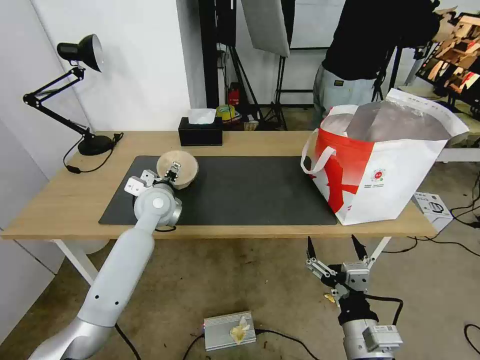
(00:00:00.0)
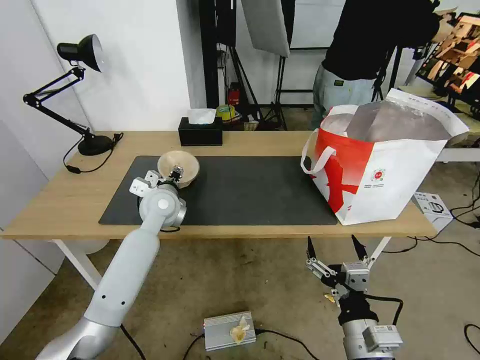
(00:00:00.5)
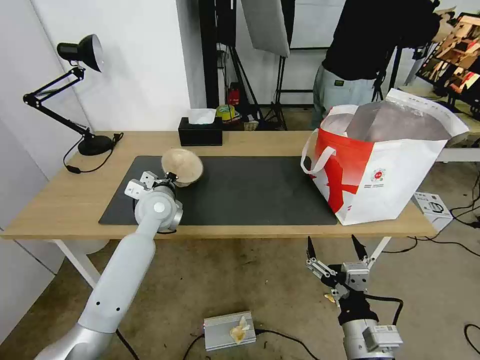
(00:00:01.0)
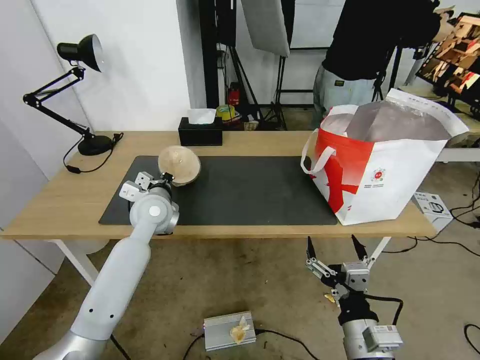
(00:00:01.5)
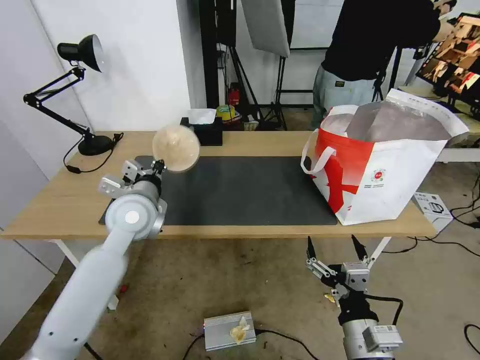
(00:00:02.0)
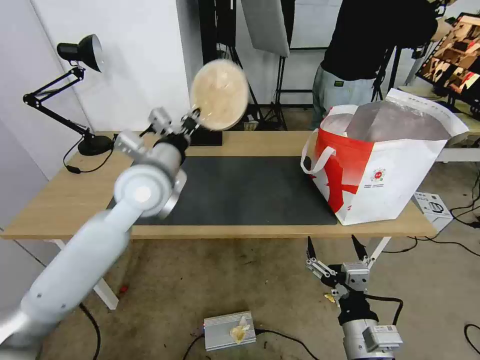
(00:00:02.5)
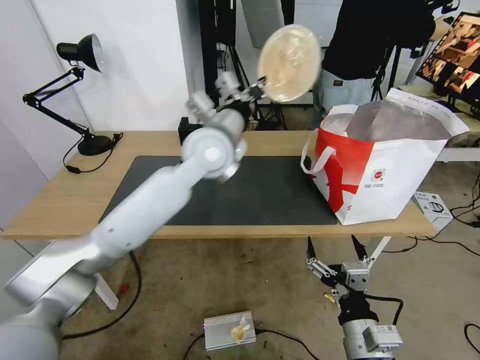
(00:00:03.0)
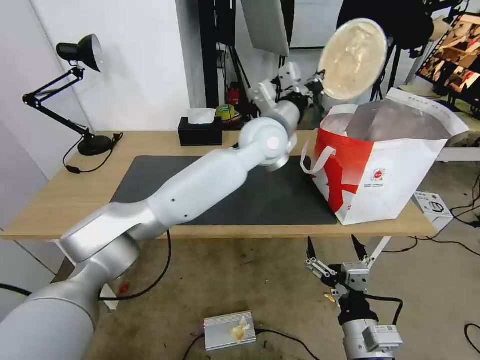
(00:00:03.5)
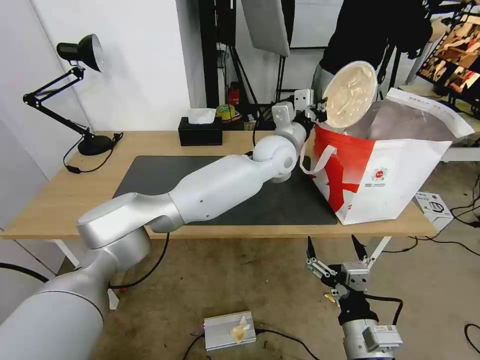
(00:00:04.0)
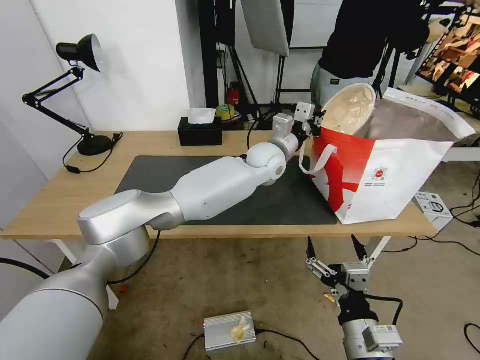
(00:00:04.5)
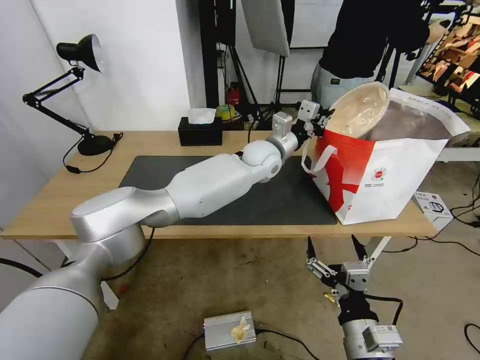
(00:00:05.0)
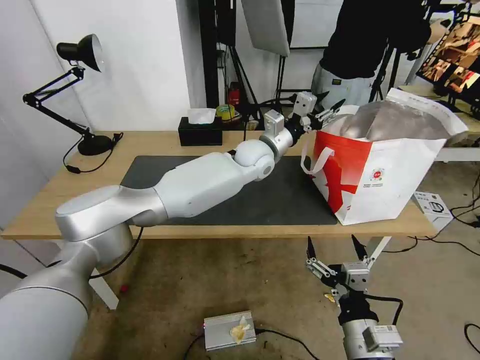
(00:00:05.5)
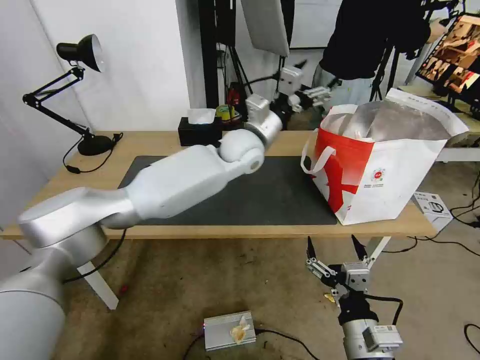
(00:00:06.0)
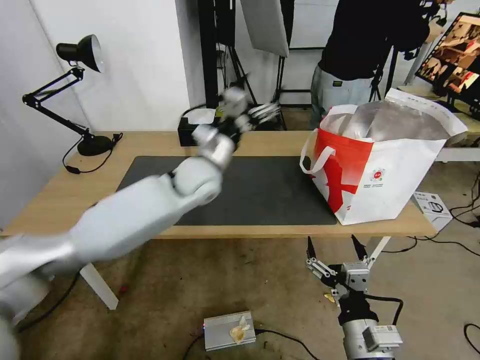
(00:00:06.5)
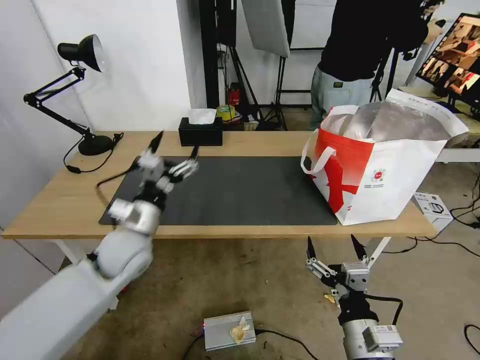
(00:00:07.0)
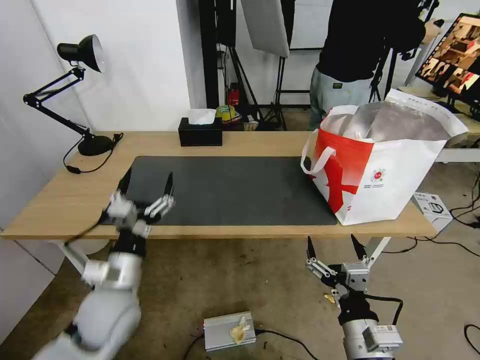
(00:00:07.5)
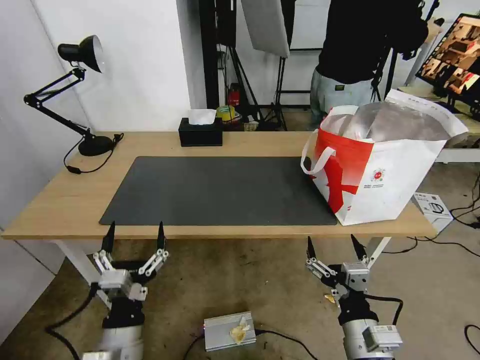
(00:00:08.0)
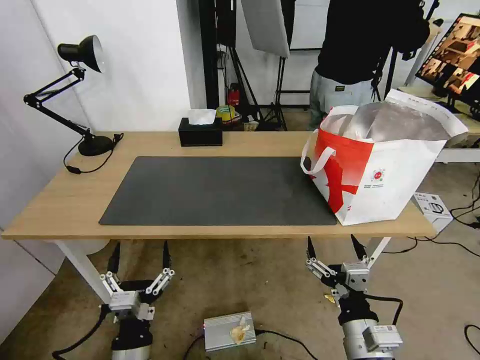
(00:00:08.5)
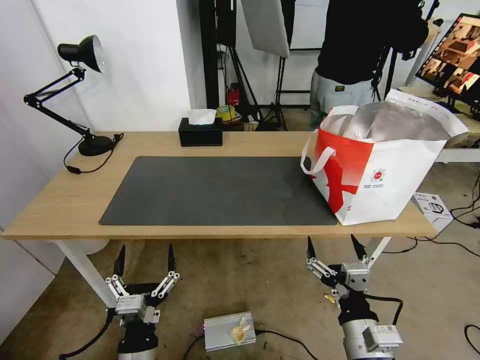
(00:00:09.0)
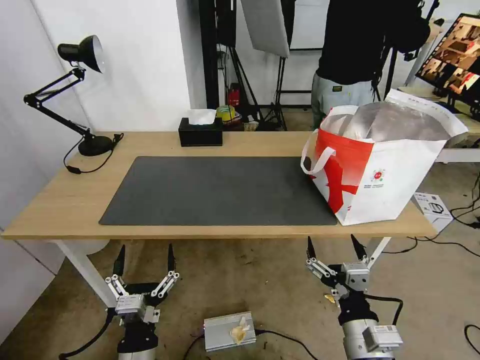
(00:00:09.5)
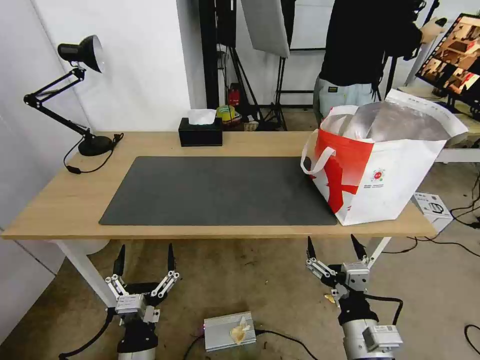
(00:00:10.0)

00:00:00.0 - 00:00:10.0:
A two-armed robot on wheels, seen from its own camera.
Task of the whole recording: Pick up the trash from the table and place it into the takeout bag.
00:00:00.0 - 00:00:02.0: The left gripper goes some 10 cm backward and upward, and closes its fingers.
00:00:02.0 - 00:00:04.0: The left gripper goes approximately 35 cm to the right and forward.
00:00:04.0 - 00:00:06.0: The left gripper is displaced to the left by approximately 10 cm, and opens.
00:00:06.0 - 00:00:08.0: The left gripper moves backward, to the left and downward, some 50 cm.
00:00:08.0 - 00:00:10.0: The left gripper changes place by some 5 cm.
